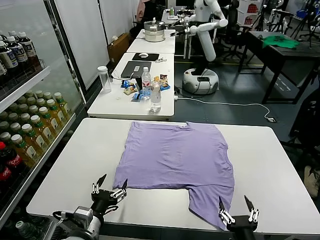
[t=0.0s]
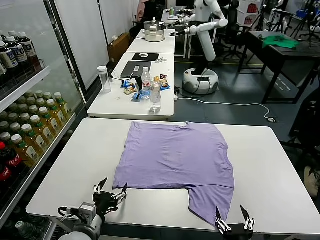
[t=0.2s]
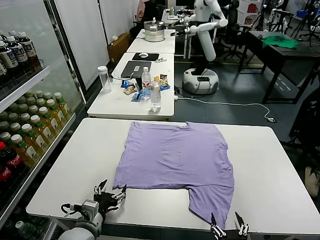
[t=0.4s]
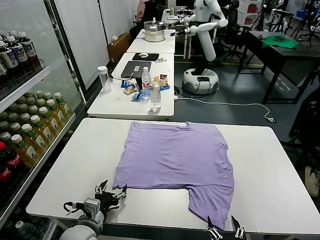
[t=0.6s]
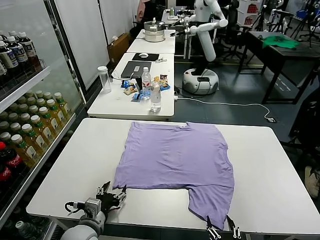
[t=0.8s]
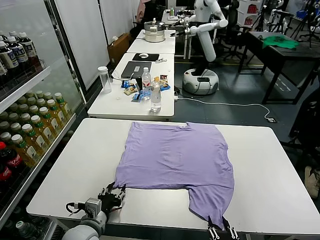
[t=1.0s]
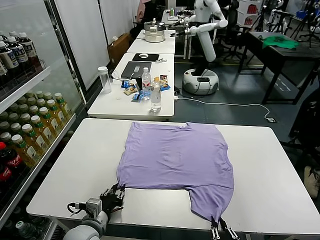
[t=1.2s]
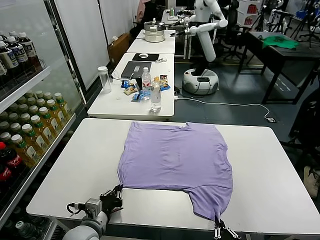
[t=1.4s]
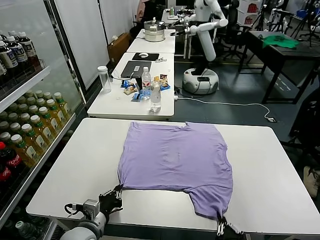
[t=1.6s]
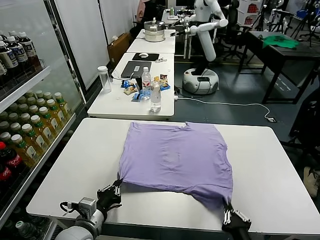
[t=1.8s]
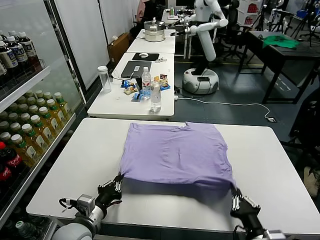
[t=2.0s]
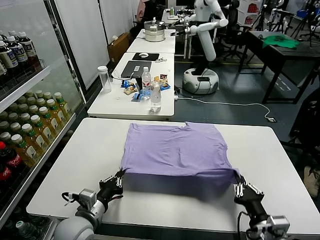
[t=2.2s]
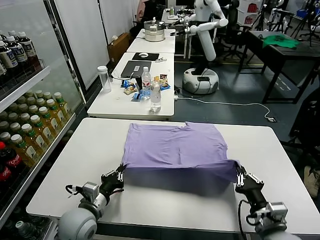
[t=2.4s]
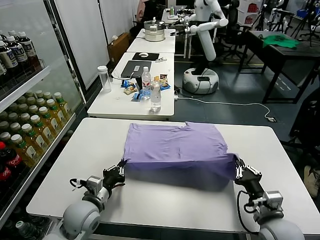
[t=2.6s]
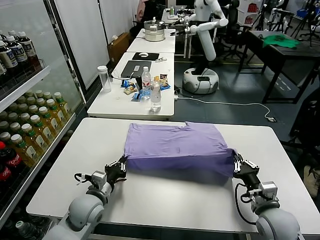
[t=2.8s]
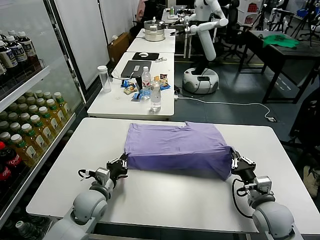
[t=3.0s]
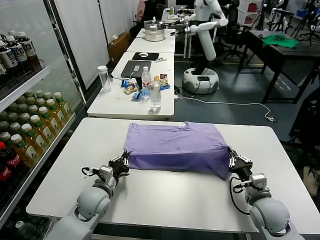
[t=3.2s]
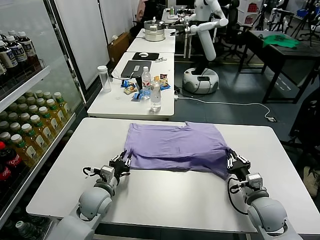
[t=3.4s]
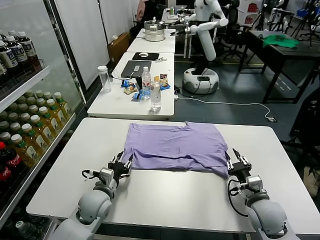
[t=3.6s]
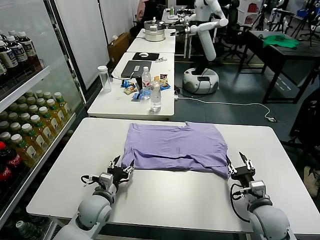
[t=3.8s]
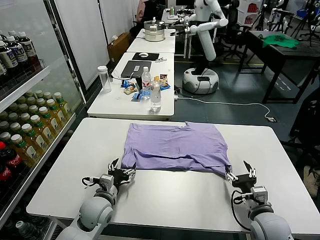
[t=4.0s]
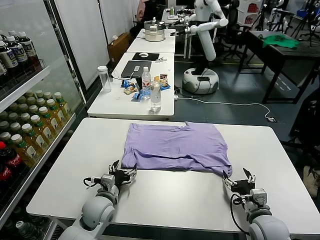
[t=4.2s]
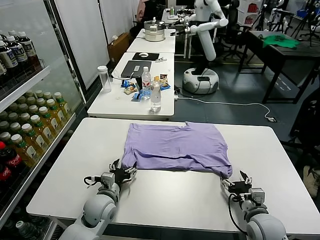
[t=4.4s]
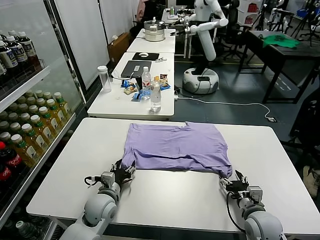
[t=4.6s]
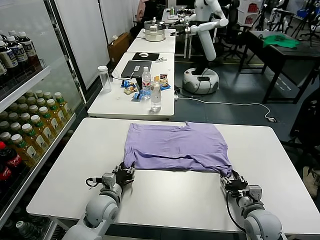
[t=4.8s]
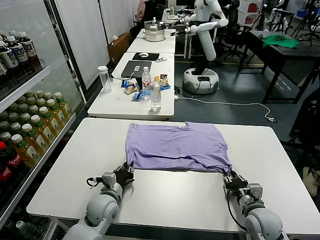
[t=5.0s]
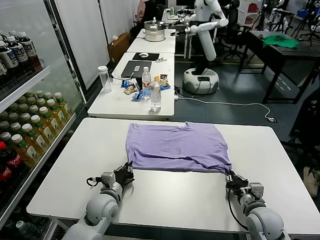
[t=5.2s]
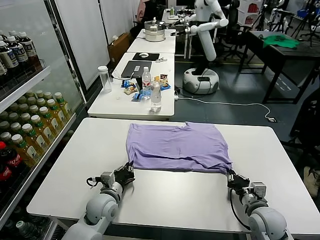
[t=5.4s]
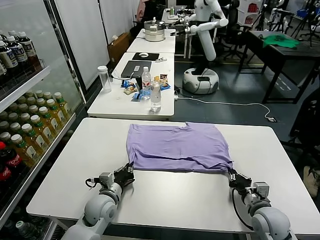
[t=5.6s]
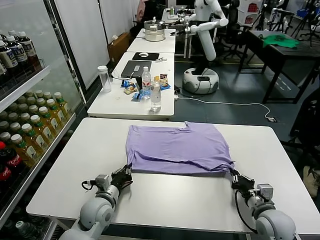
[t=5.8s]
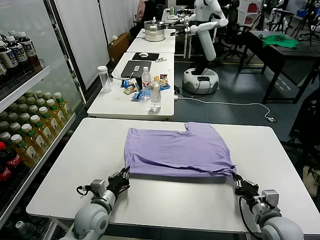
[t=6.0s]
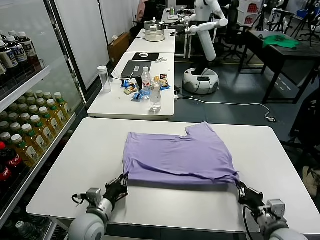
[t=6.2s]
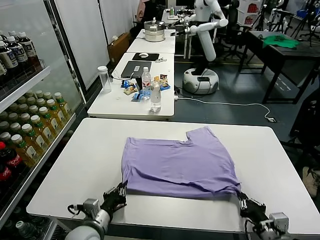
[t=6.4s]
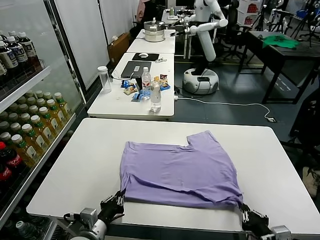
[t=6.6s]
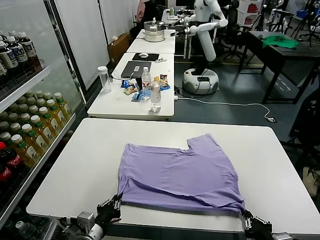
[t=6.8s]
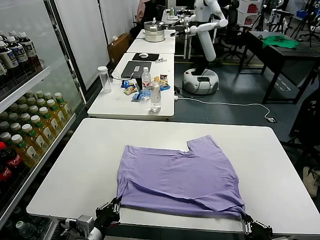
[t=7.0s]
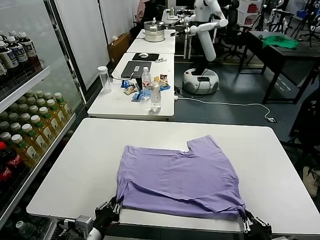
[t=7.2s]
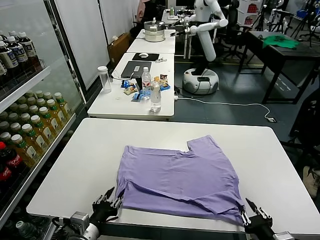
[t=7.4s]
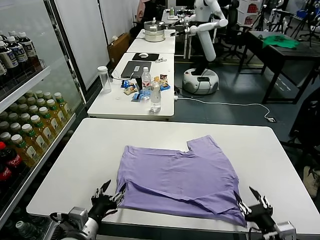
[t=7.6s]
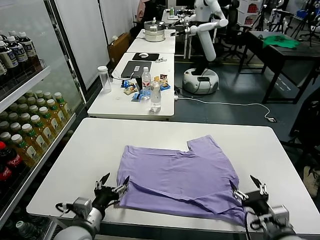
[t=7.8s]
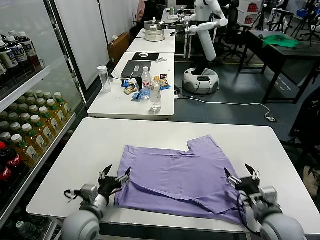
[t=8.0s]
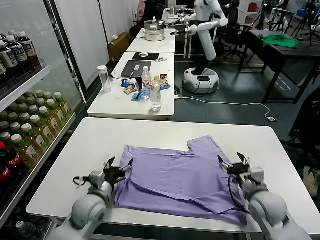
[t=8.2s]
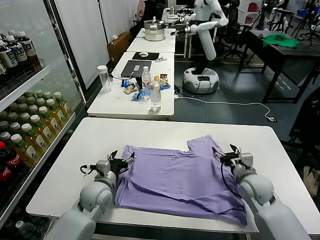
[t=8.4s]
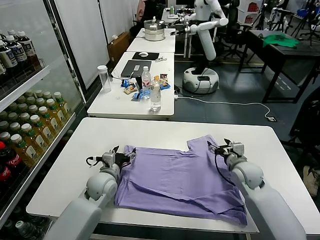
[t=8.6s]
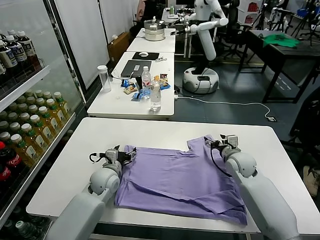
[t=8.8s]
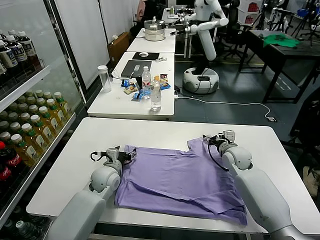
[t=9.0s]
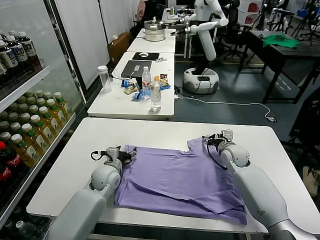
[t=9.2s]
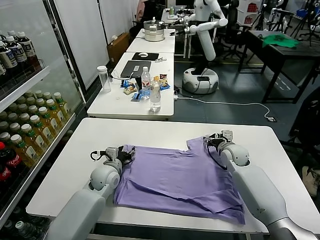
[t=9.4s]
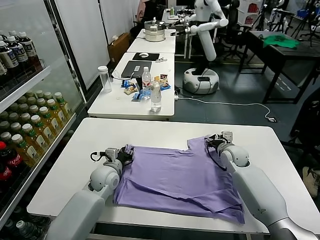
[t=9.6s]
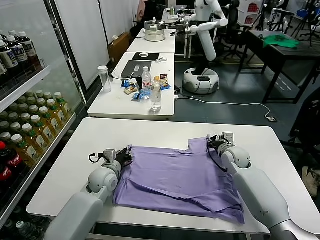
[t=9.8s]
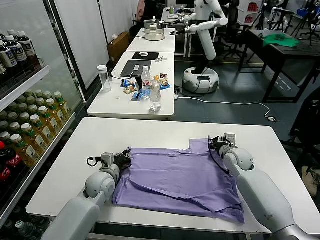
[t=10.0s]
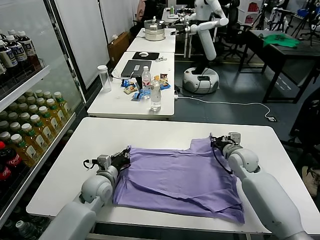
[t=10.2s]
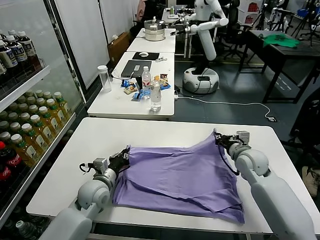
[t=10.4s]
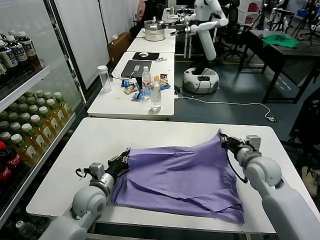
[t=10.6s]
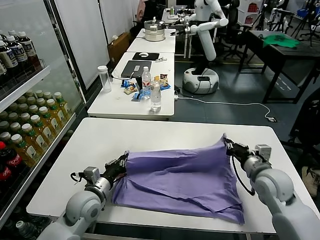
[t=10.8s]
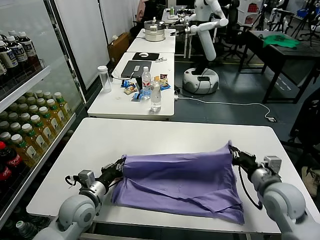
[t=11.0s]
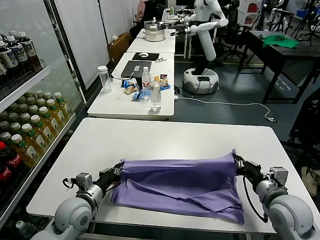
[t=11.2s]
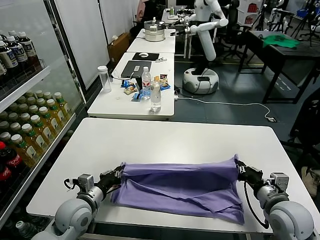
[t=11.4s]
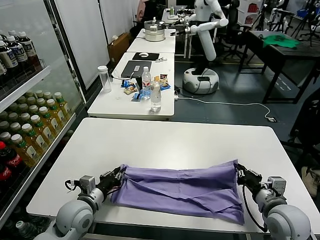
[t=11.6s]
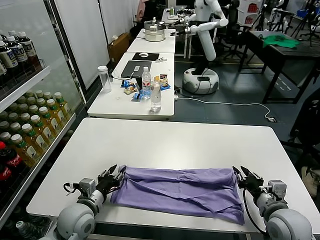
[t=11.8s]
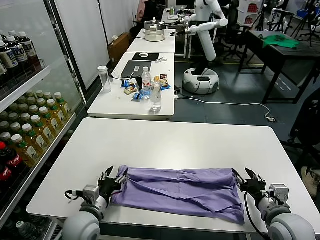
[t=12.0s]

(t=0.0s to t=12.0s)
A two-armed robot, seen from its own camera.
Task of the whole recording: fold and organize the clothes.
Step, t=0.0s - t=1.4s: use both grippers simultaneously to clamp the lower edge of the clothing fabric.
Step, t=1.6s - t=3.8s: use both grippers to drag the lower edge of the fabric forward and fold it over the upper edge.
Step, t=4.0s - t=7.6s: Drag the clothes downward with both gripper.
Step, t=7.8s - t=9.8s: use both grippers simultaneously to clamp the upper edge of the clothing fabric.
t=1.6s - t=3.0s: The right gripper goes about 20 cm forward, while the left gripper heads forward, covering approximately 10 cm.
t=3.0s - t=4.4s: The right gripper opens. The left gripper opens up.
t=4.4s - t=6.0s: The right gripper ends up roughly 5 cm from where it was, and closes its fingers, while the left gripper closes its fingers.
t=6.0s - t=7.6s: The left gripper is displaced backward and upward by about 10 cm, and opens its fingers, while the right gripper is displaced backward by approximately 5 cm, and opens up.
t=7.6s - t=9.0s: The two grippers go about 30 cm forward.
t=9.0s - t=10.4s: The left gripper is displaced backward by some 5 cm, and closes. Meanwhile the right gripper is displaced backward and upward by roughly 10 cm, and closes up.
t=10.4s - t=12.0s: The right gripper goes some 20 cm backward, and opens its fingers. Meanwhile the left gripper shifts approximately 10 cm backward, and opens.

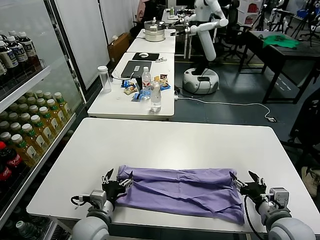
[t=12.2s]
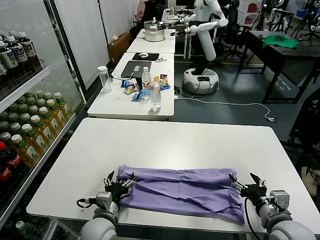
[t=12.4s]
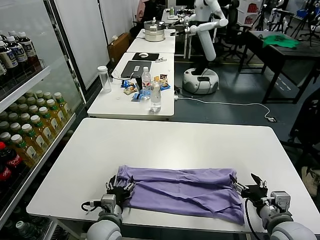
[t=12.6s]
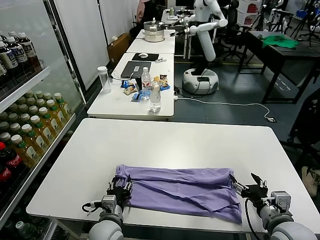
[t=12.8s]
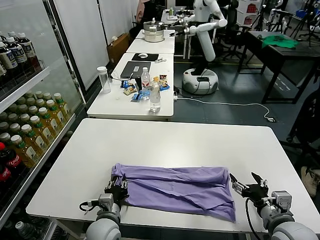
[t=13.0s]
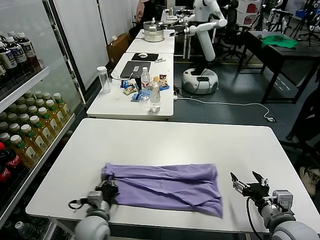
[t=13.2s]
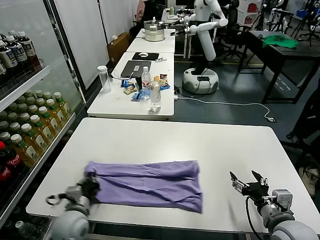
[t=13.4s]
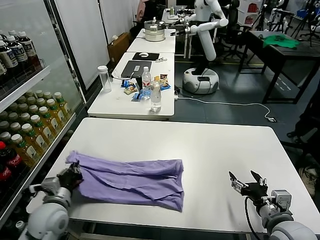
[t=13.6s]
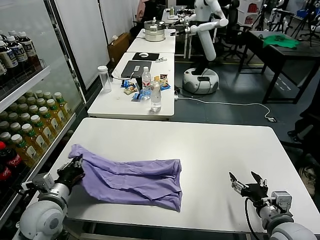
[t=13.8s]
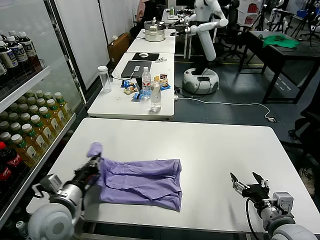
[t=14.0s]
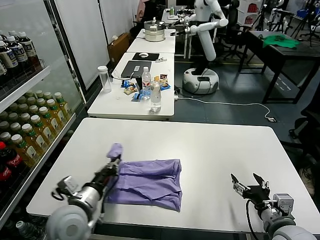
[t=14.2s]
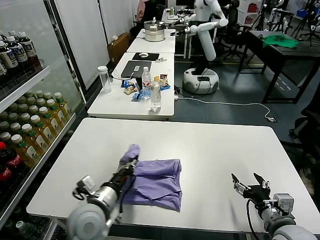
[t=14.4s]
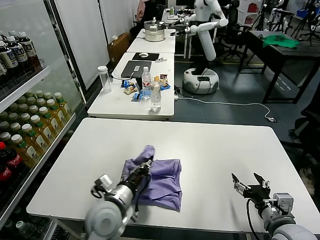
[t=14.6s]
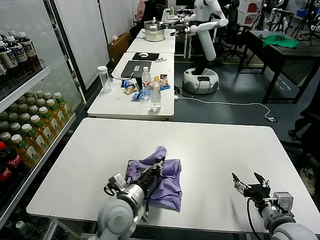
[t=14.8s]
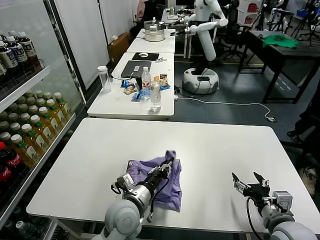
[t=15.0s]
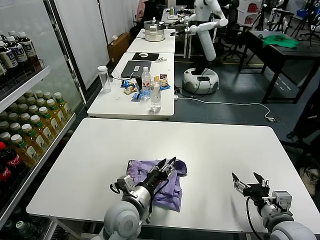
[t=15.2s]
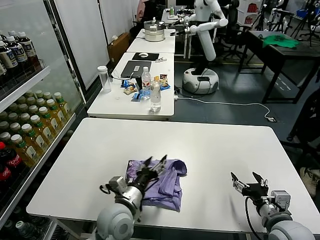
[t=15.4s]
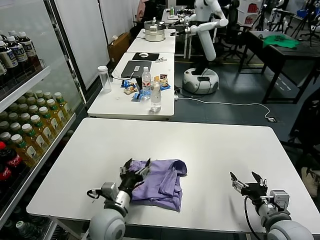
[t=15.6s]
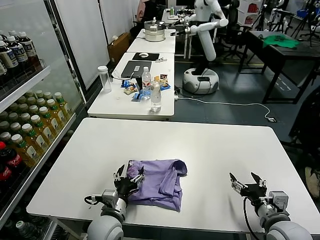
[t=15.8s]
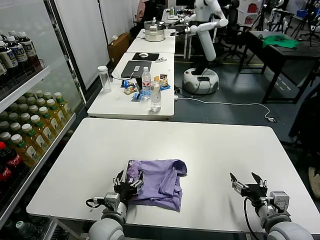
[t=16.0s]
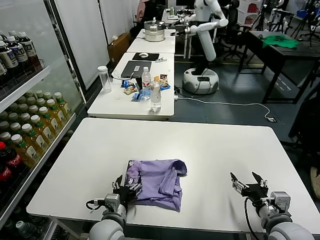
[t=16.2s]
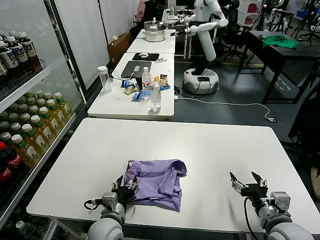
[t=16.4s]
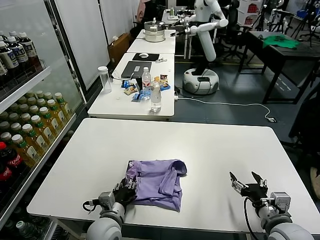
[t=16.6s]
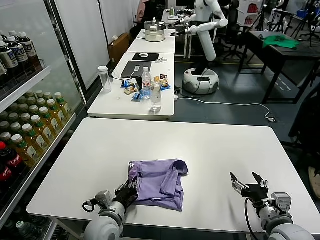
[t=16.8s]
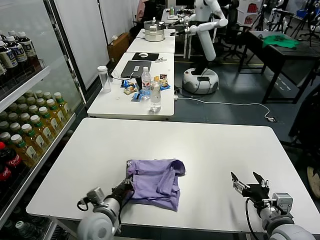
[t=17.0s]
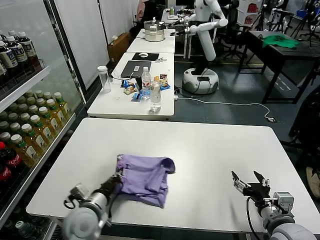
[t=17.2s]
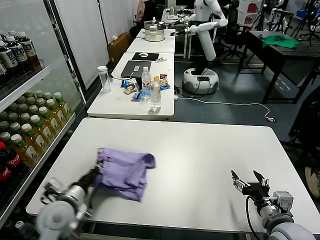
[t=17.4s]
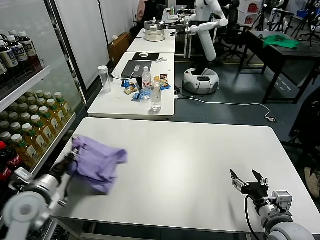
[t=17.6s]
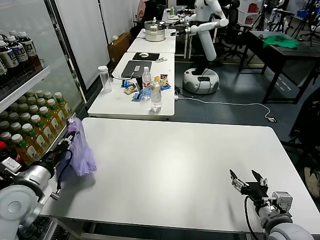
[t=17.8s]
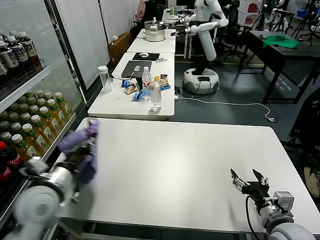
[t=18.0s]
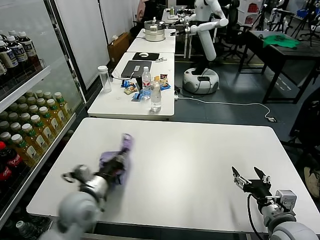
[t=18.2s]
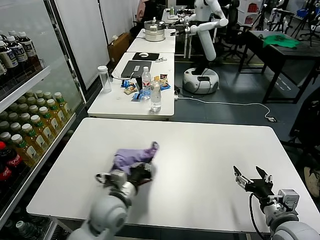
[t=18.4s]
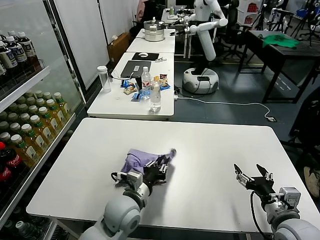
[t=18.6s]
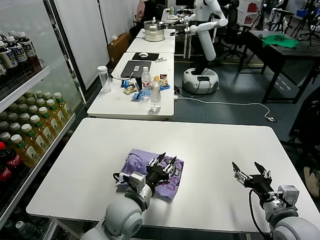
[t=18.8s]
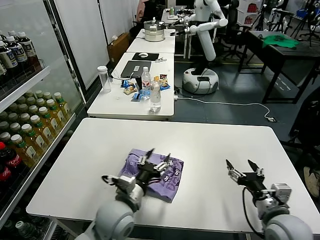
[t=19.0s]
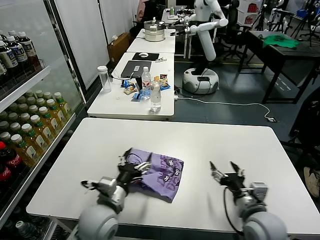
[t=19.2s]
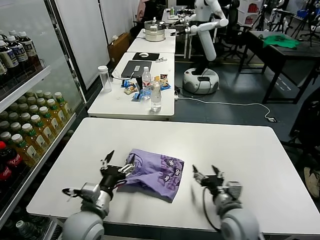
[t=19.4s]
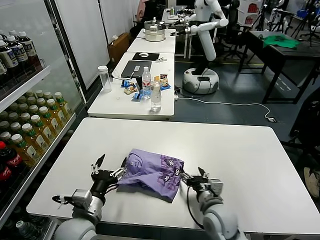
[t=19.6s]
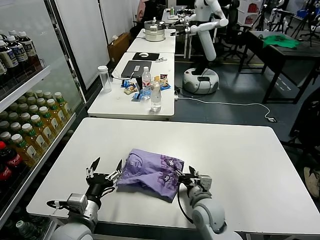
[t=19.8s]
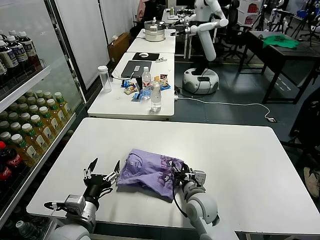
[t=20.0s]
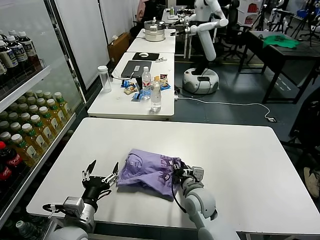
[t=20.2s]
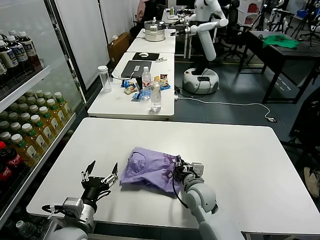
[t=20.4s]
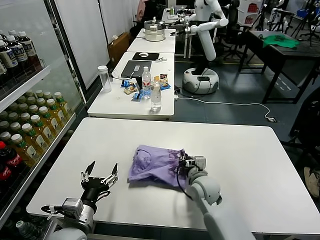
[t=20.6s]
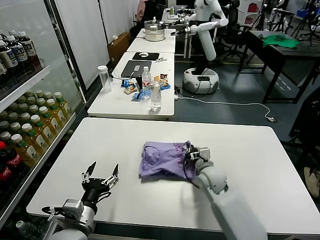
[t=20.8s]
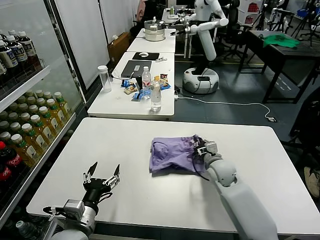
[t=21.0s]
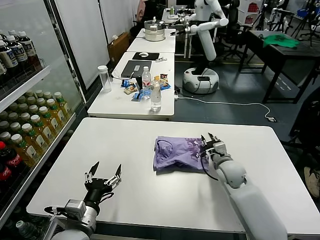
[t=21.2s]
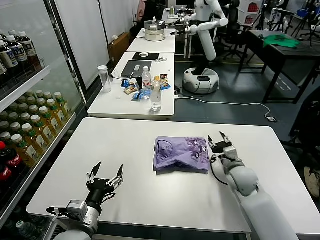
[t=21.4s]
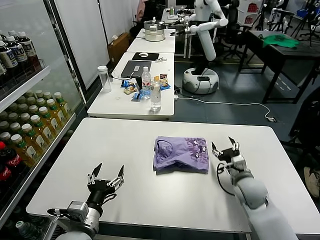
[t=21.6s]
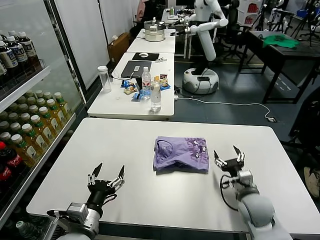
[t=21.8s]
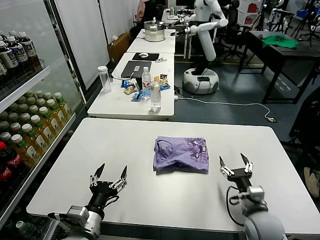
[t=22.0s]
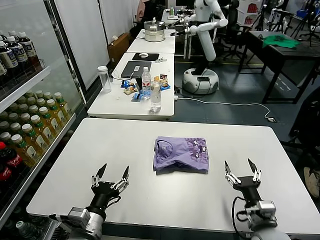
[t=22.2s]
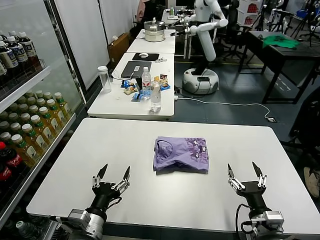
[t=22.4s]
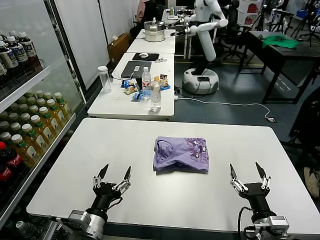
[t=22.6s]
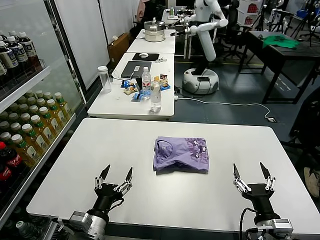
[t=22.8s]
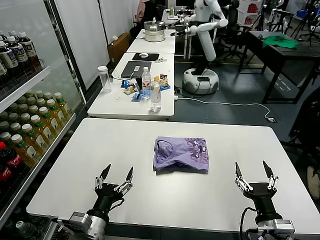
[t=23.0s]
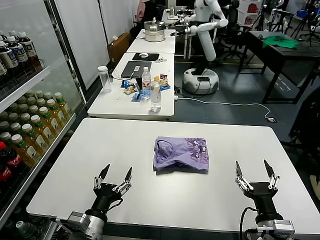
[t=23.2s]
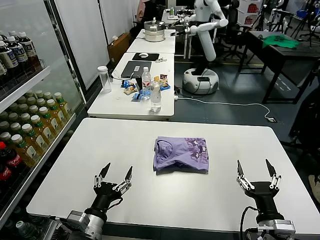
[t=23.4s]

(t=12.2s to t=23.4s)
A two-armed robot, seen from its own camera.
Task of the whole recording: fold and organize the clothes.
Step, t=12.2s - t=13.0s: use the left gripper to clamp the left edge of the fabric.
Step, t=13.4s - t=15.4s: use the left gripper to drag the left edge of the fabric to the left and folds it over the right edge.
Step, t=15.6s - t=19.2s: Flip the folded clothes over with left gripper.
Step, t=19.4s - t=21.6s: Drag the clothes to the center of the table.
t=12.2s - t=13.8s: The left gripper is displaced to the left and upward by approximately 15 cm, and closes up.
t=13.8s - t=15.4s: The left gripper travels to the right by some 20 cm, and opens up.
t=15.4s - t=17.0s: The left gripper travels to the left by approximately 5 cm, and closes its fingers.
t=17.0s - t=18.6s: The left gripper reaches approximately 15 cm to the left, then returns.
t=18.6s - t=20.2s: The left gripper shifts about 15 cm to the left and backward, and opens up. The right gripper heads to the left, forward and downward, covering approximately 25 cm, and closes its fingers.
t=20.2s - t=21.8s: The right gripper goes roughly 15 cm to the right, and opens its fingers.
t=21.8s - t=23.4s: The right gripper moves backward, about 15 cm.
